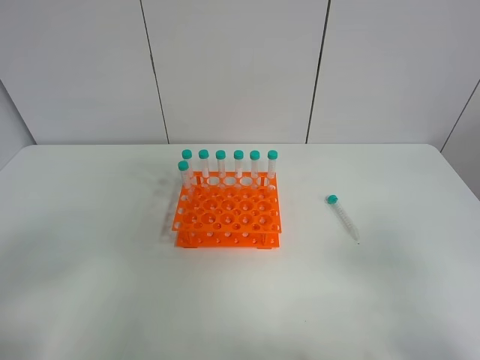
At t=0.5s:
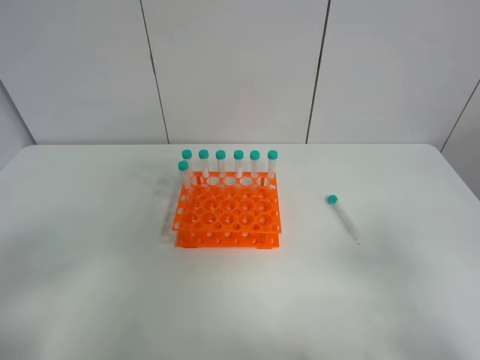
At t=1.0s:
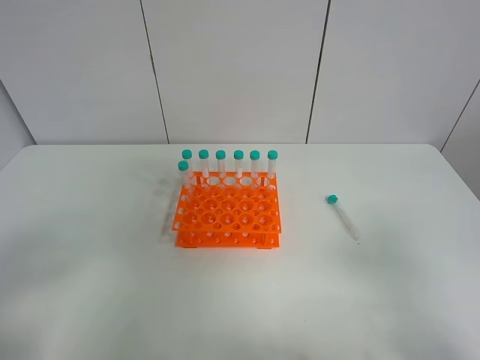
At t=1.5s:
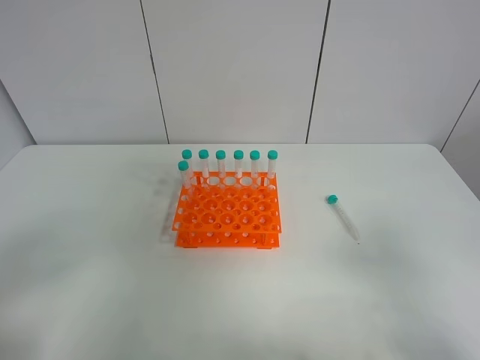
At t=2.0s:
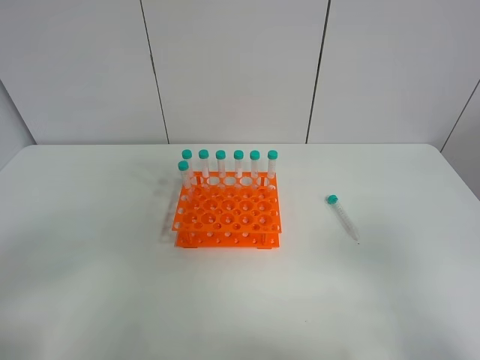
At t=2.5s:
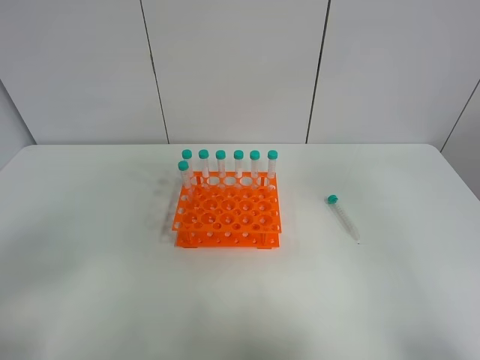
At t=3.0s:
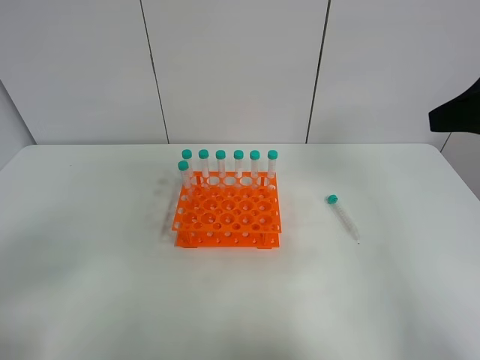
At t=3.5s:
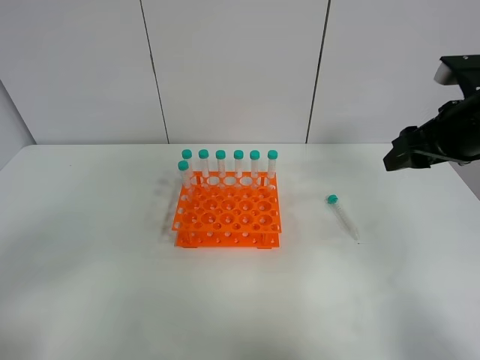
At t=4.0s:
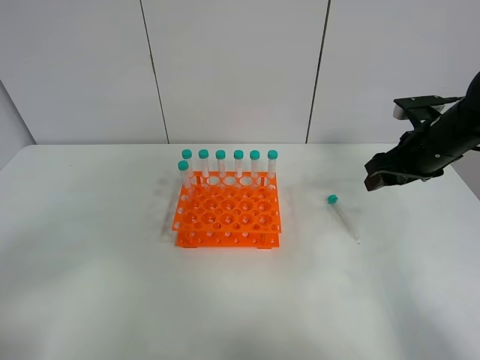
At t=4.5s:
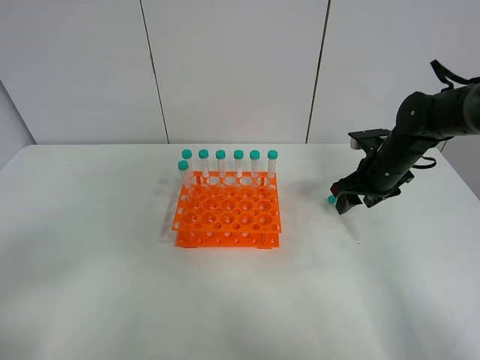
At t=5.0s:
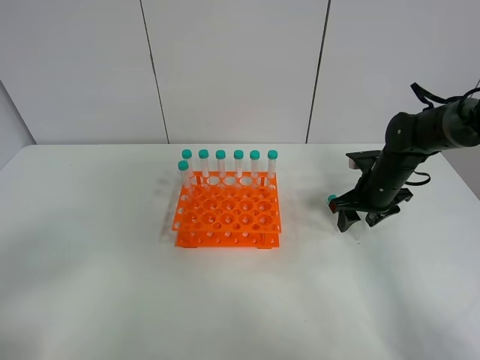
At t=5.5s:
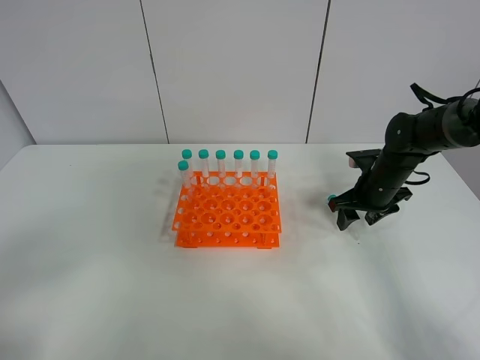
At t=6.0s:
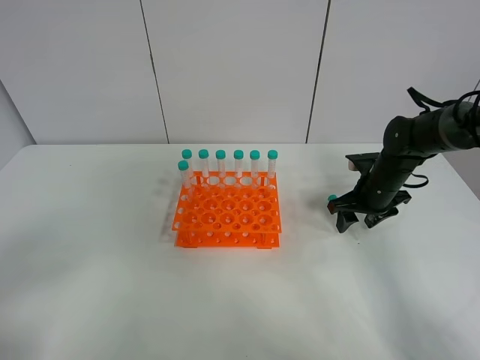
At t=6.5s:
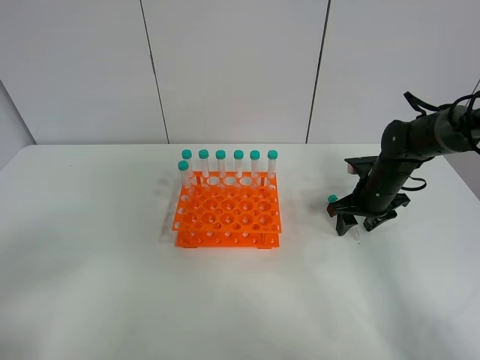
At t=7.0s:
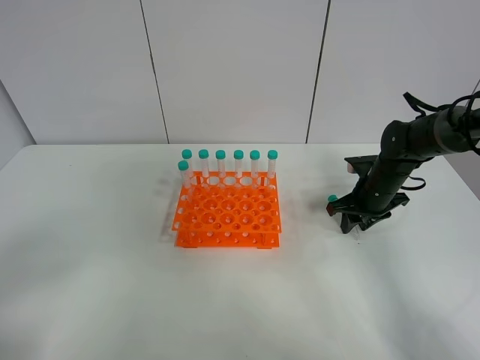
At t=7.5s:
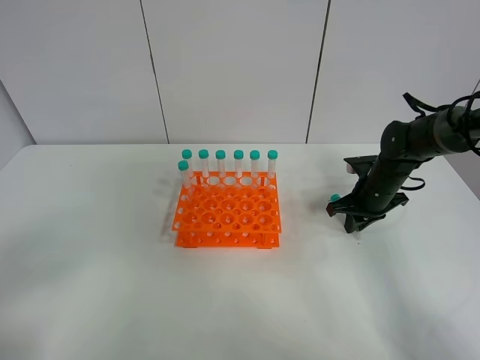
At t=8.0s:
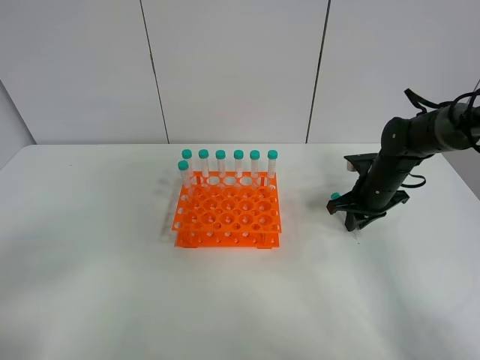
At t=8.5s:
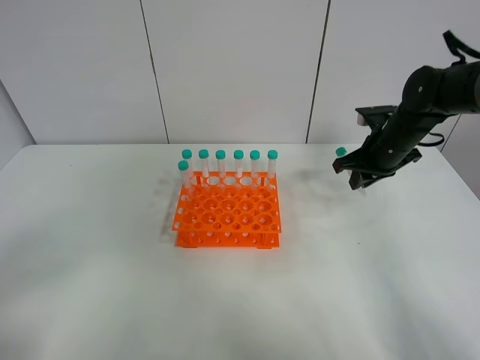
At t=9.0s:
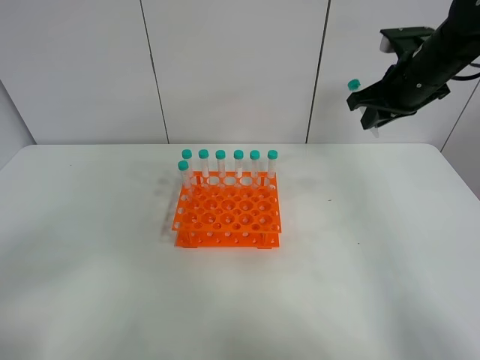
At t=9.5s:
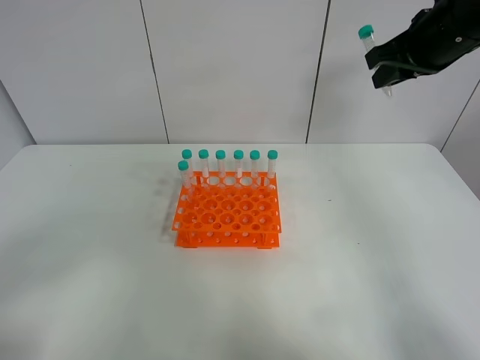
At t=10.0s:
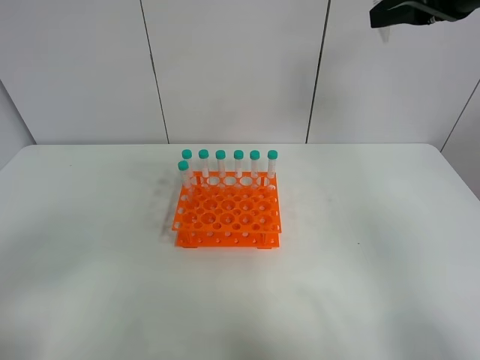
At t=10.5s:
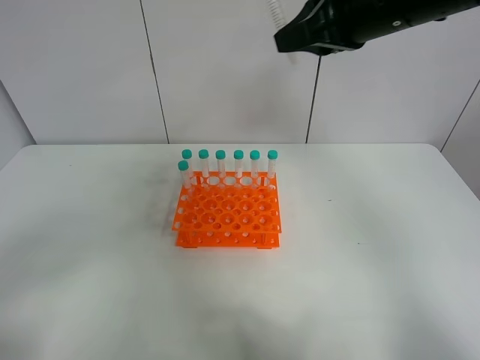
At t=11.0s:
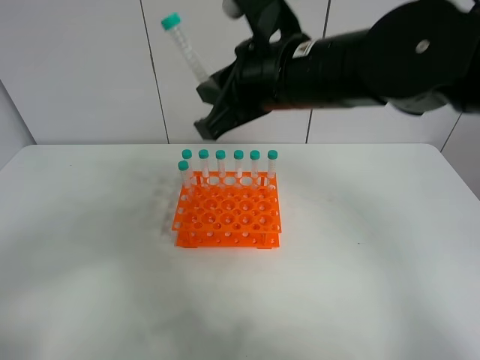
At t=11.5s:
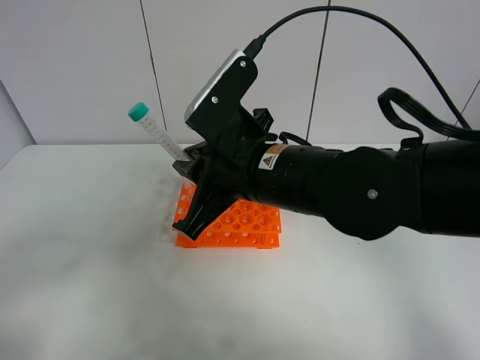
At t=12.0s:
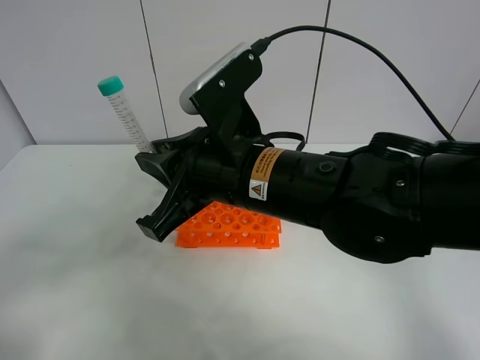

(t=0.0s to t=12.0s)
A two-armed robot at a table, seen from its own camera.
Task of the whole recording: Put the test tube on the table back onto the test tube rack.
Step, t=0.0s - t=8.5s: Pick up the test tube with the right gripper.
t=2.0s - t=4.0s: The right gripper heads forward, covering some 35 cm.
t=4.0s - t=6.0s: The right gripper shifts about 10 cm downward.
t=6.0s - t=8.0s: The right gripper closes up.
t=8.0s - t=10.0s: The right gripper is displaced upward by approximately 30 cm.
t=10.0s - t=12.0s: The right gripper moves to the left, downward and backward, roughly 30 cm.

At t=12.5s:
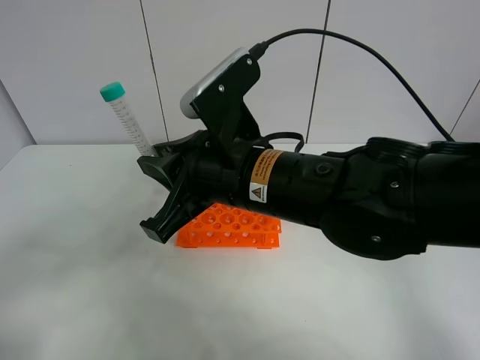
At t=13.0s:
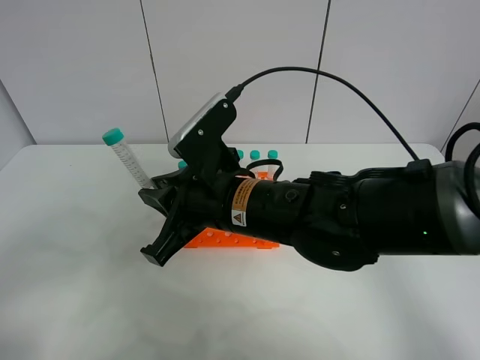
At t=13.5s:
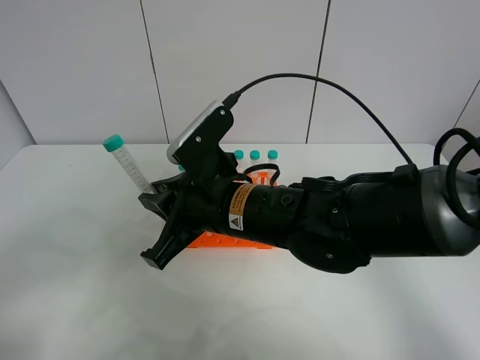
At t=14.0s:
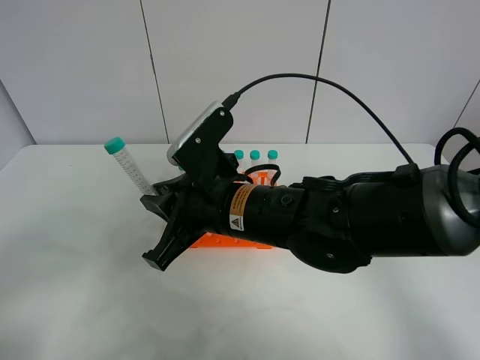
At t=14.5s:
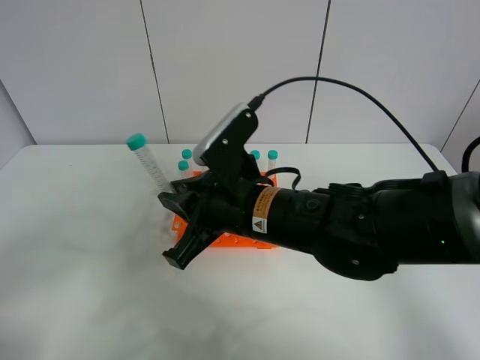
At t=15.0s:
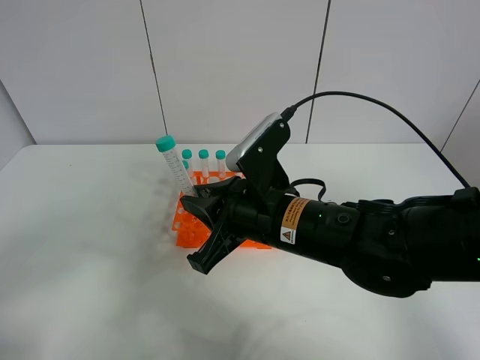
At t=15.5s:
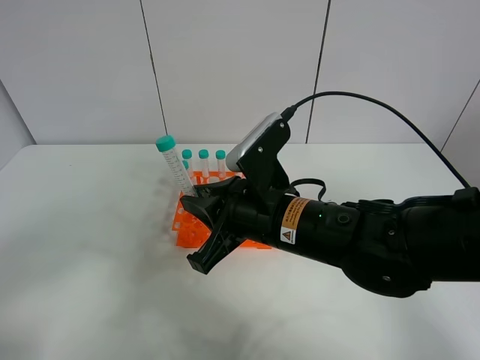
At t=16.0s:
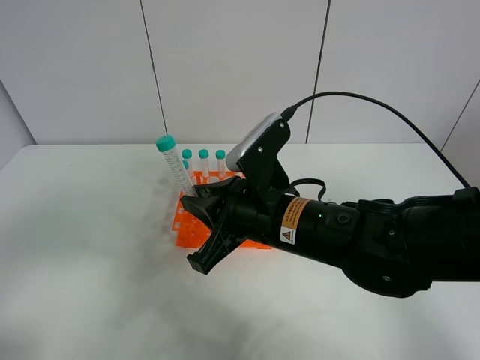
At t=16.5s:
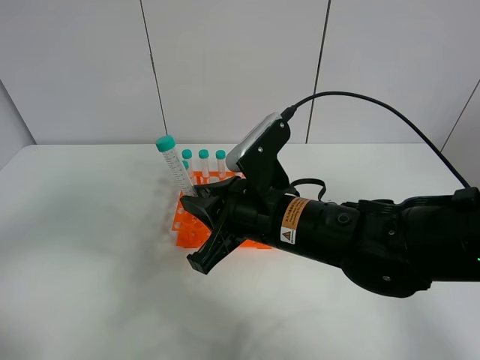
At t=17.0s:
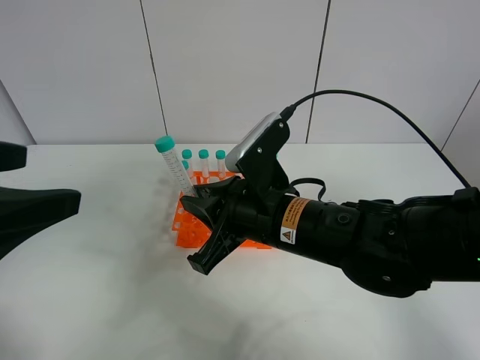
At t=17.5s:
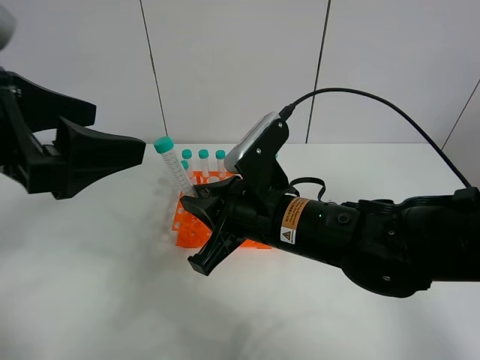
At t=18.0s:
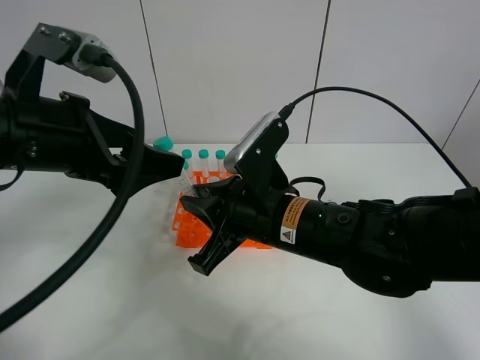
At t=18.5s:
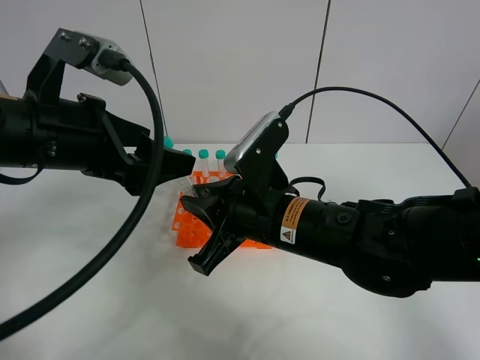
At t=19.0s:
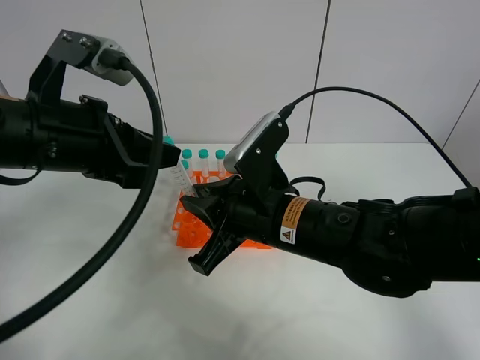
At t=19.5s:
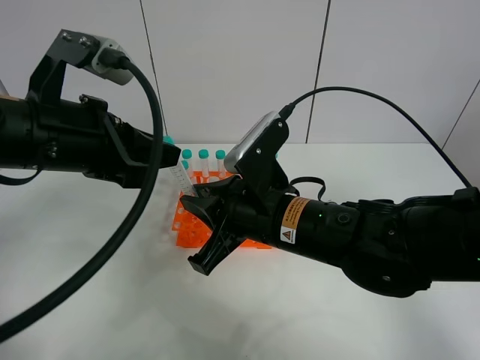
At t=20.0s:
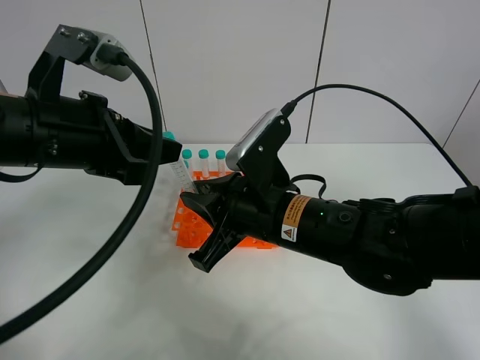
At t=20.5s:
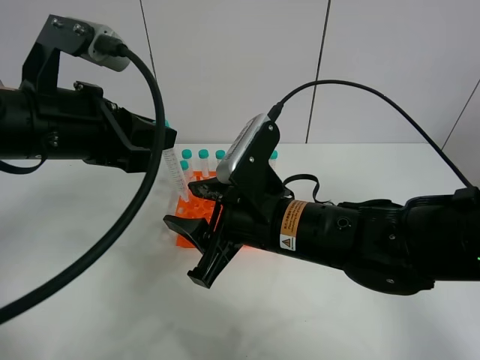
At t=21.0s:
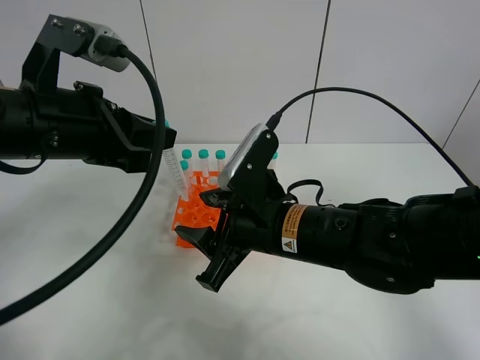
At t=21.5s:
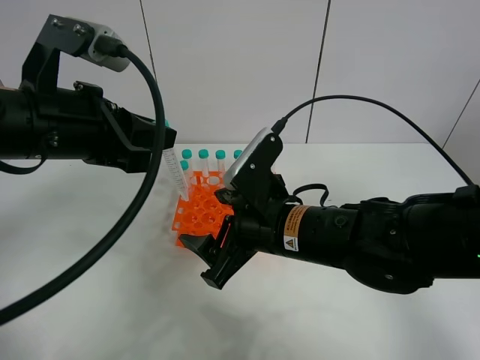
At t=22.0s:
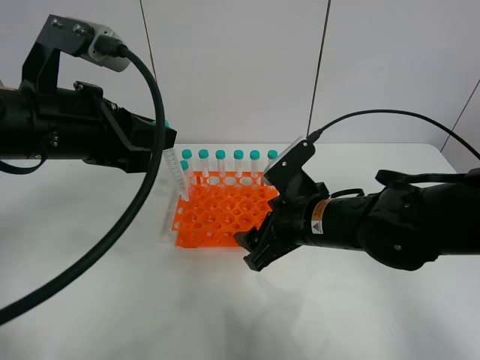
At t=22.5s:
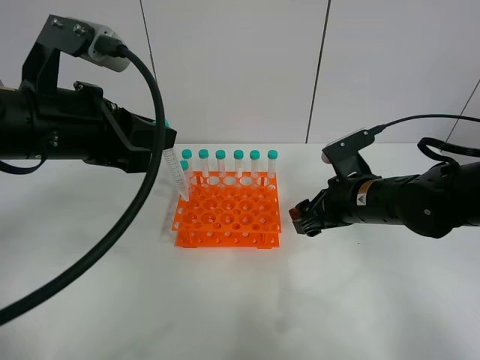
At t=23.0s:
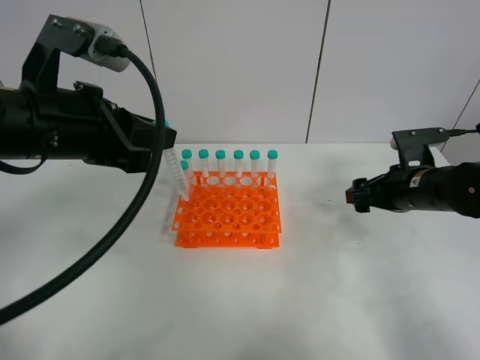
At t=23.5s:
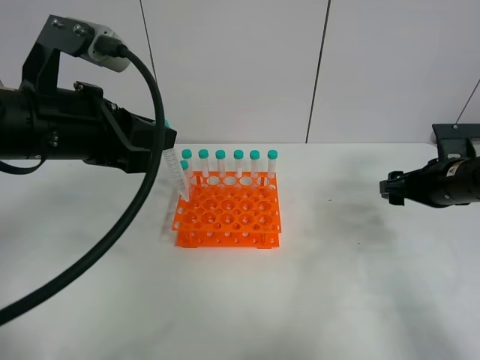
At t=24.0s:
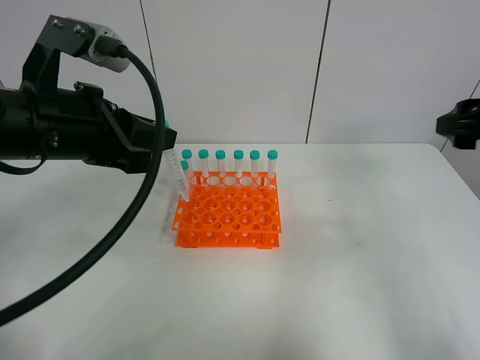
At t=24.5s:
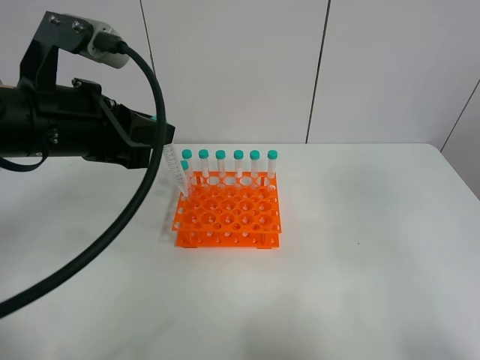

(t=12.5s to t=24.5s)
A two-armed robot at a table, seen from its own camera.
Task of the whole recording: Put the test tube on the table back onto the test tube rack.
Step, t=12.5s - t=22.0s: Move the test tube from the right gripper to the left gripper.
t=12.5s - t=14.5s: The right gripper travels downward by roughly 5 cm.
t=14.5s - t=16.5s: The left gripper travels upward and forward by some 10 cm.
t=16.5s - t=18.5s: The left gripper heads forward and to the right, covering roughly 20 cm.
t=18.5s - t=20.5s: The right gripper opens up. The left gripper closes its fingers.
t=20.5s - t=22.5s: The right gripper goes approximately 15 cm to the right and forward, and opens its fingers.
t=22.5s - t=24.5s: The right gripper moves upward, backward and to the right, approximately 35 cm.

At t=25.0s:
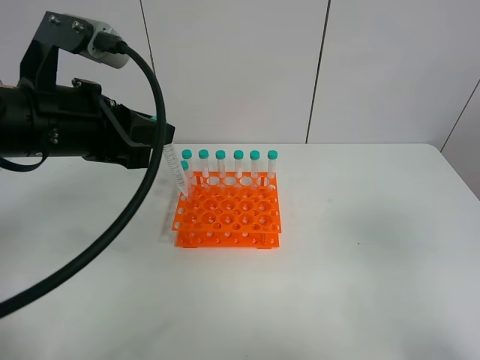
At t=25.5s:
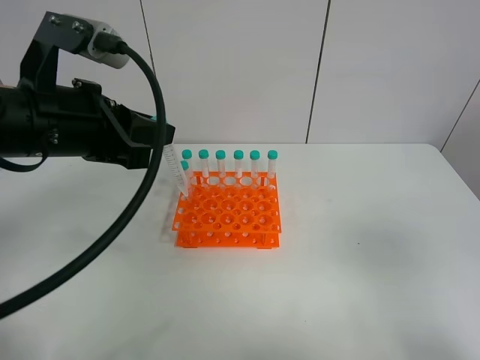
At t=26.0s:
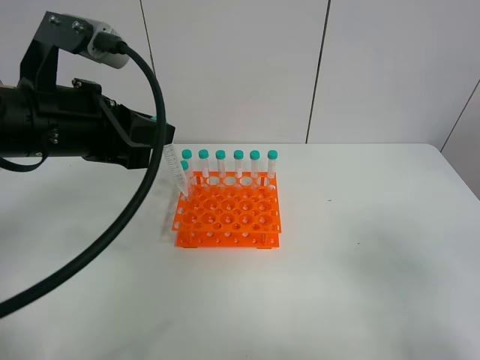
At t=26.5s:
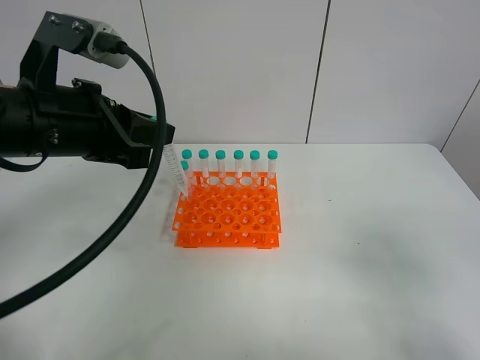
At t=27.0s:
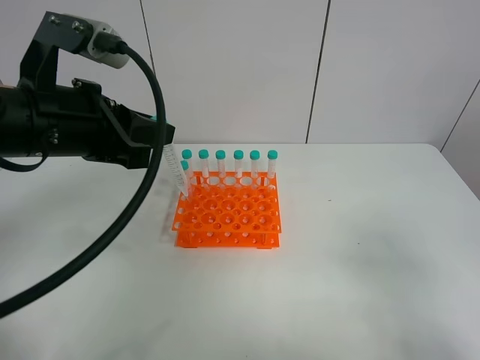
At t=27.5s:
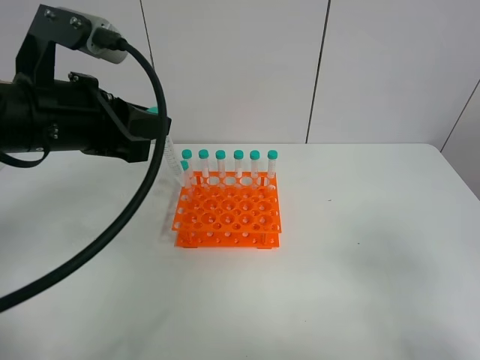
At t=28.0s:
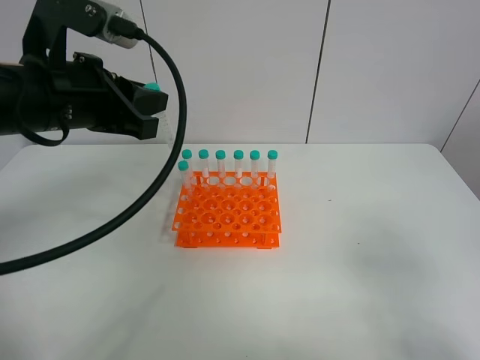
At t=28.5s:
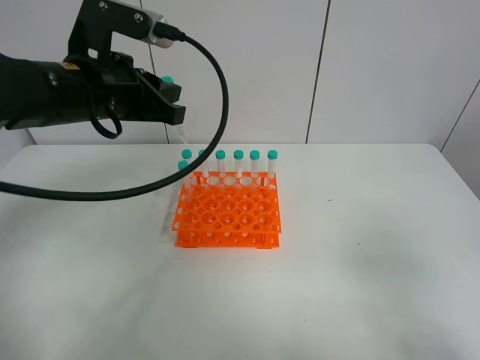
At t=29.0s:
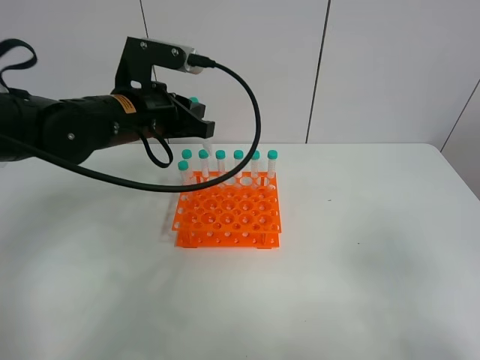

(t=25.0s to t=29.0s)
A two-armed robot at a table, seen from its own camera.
Task of the whole recording: Put the test tube on the table back onto the test tube rack.
t=27.0s - t=29.0s: The left gripper goes some 10 cm forward and downward.
